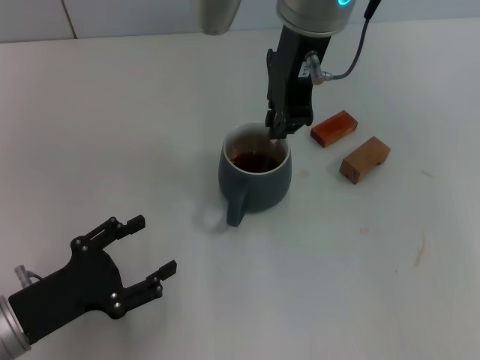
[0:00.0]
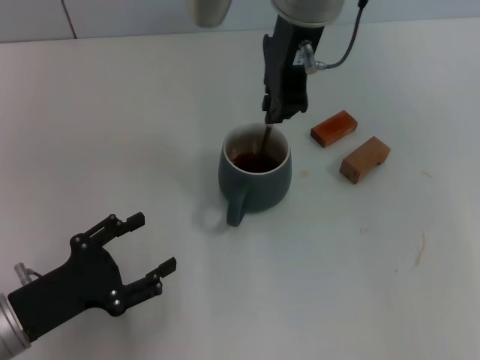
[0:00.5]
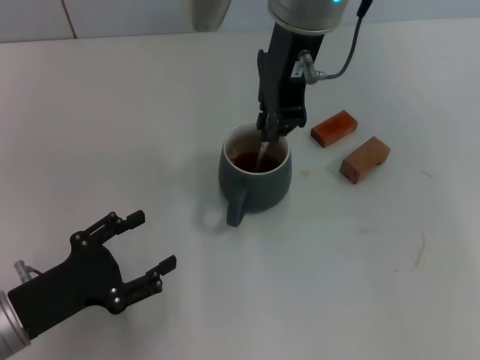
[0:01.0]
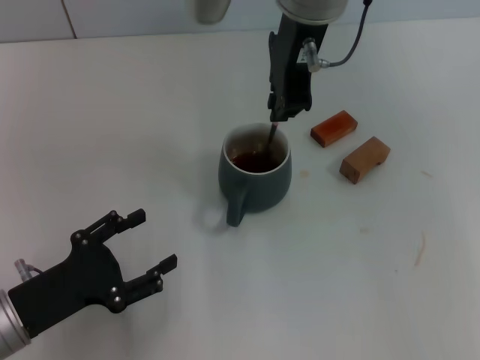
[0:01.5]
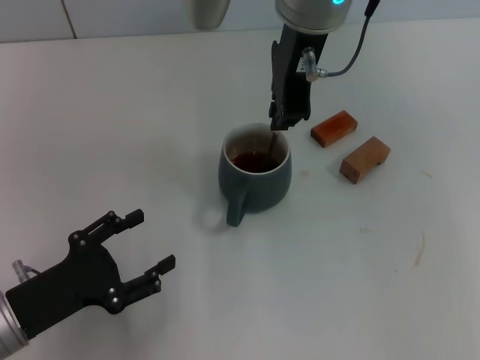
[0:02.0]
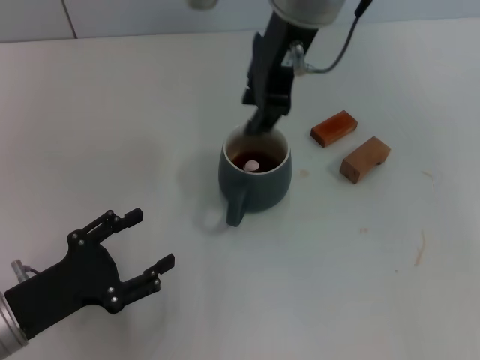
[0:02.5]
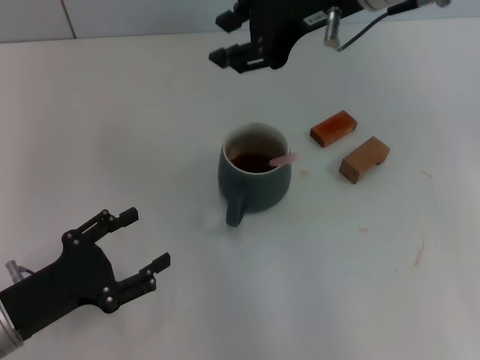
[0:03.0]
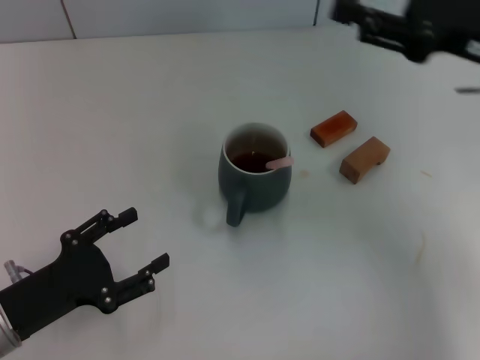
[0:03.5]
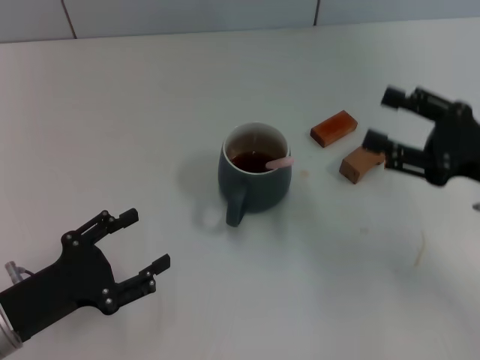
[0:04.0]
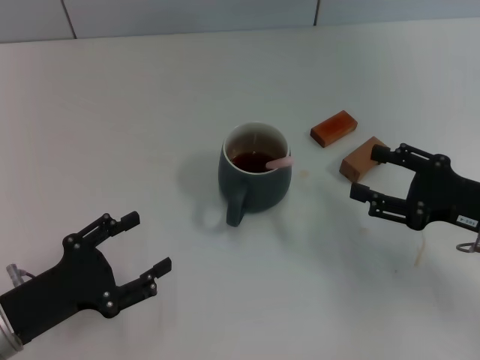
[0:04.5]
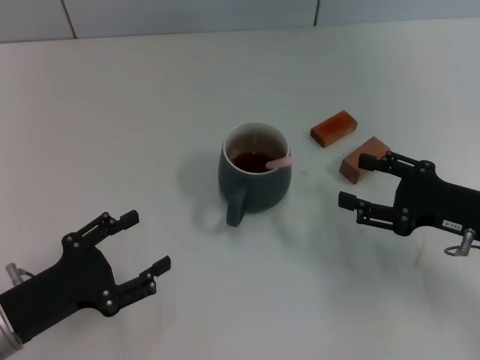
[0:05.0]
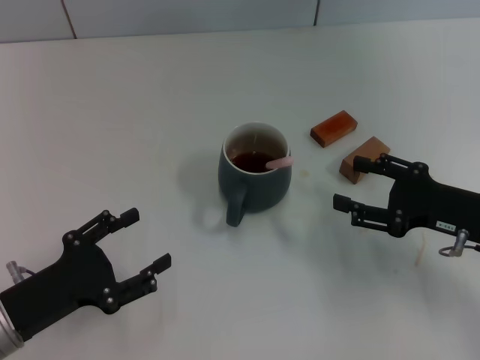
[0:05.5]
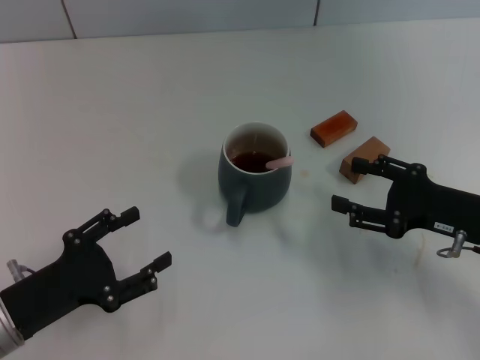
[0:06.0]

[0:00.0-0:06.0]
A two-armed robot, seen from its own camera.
Task of the whole recording: Move the grey cup to the center, lift the pink spoon, stir it three times in the cup, and put the spoon into the cup.
Step, 0:00.0 to 0:02.5: Stir the coffee in the cup with the right gripper.
0:00.0 to 0:02.0: The grippers move only a little.
0:02.0 to 0:04.0: The right gripper goes some 35 cm to the right, downward and backward, and opens.
0:04.0 to 0:06.0: The right gripper heads downward, covering about 5 cm.
